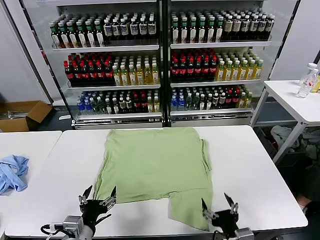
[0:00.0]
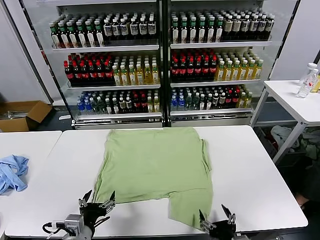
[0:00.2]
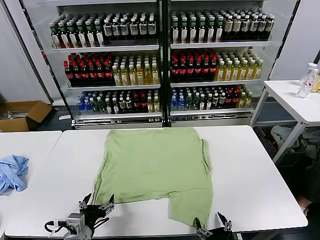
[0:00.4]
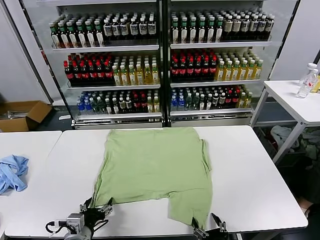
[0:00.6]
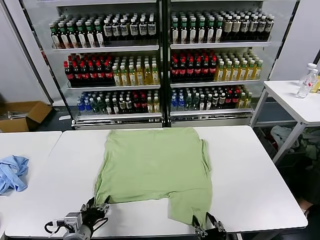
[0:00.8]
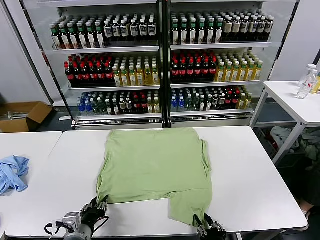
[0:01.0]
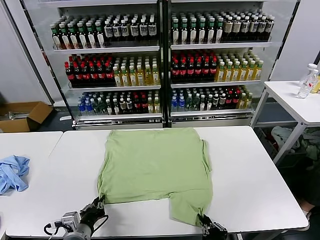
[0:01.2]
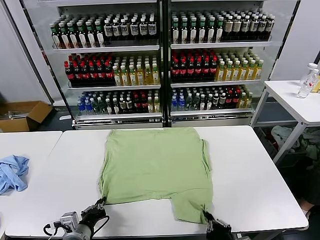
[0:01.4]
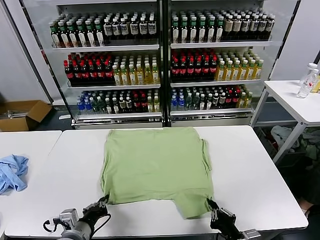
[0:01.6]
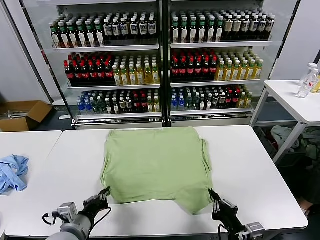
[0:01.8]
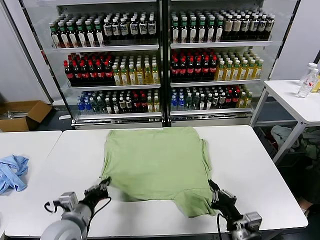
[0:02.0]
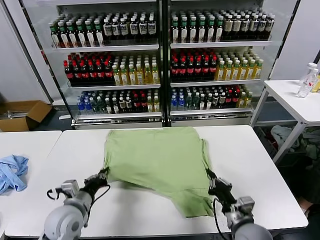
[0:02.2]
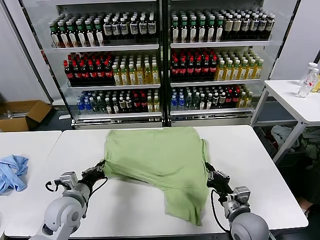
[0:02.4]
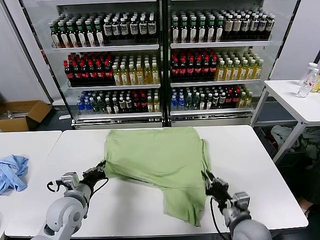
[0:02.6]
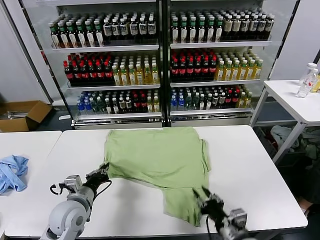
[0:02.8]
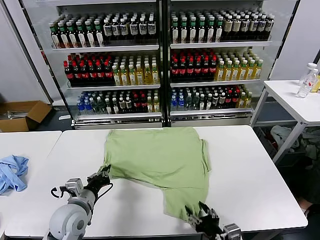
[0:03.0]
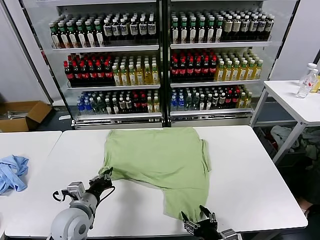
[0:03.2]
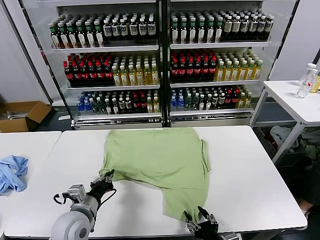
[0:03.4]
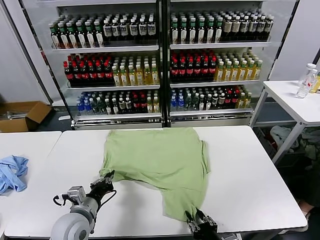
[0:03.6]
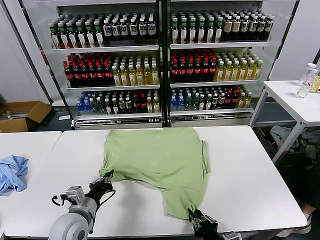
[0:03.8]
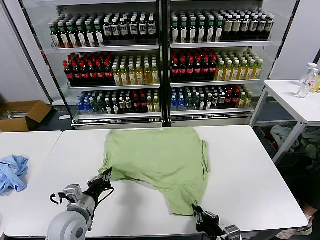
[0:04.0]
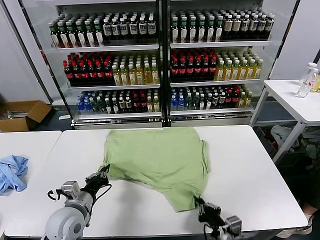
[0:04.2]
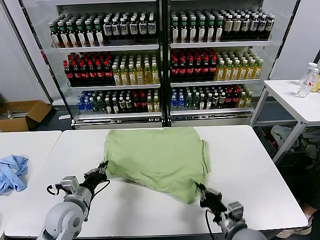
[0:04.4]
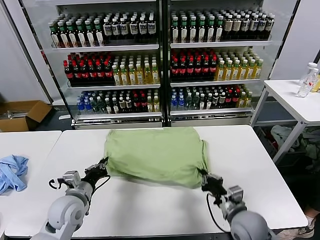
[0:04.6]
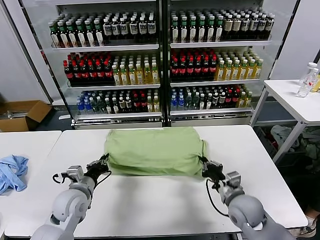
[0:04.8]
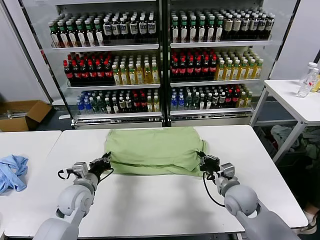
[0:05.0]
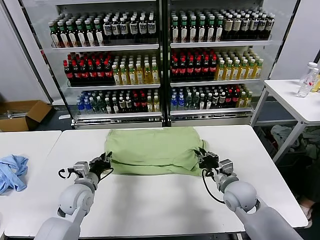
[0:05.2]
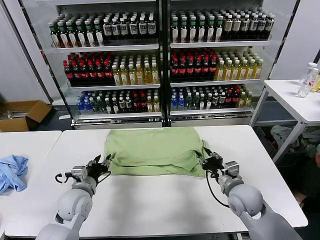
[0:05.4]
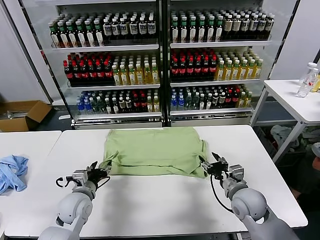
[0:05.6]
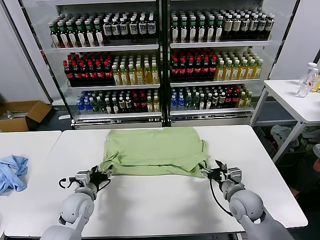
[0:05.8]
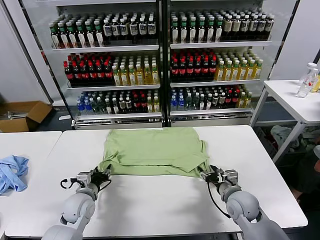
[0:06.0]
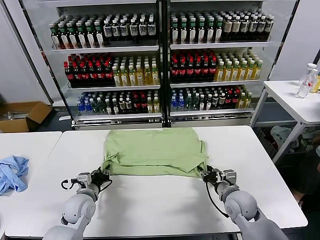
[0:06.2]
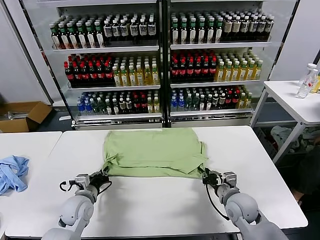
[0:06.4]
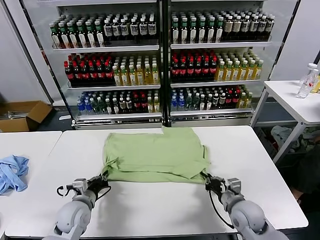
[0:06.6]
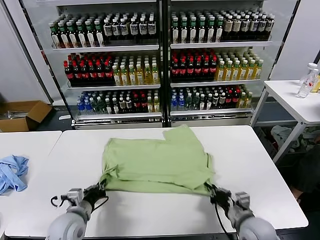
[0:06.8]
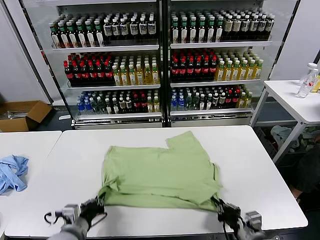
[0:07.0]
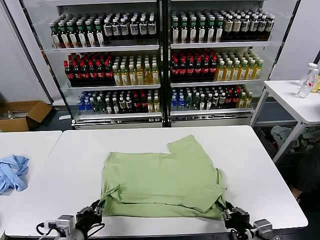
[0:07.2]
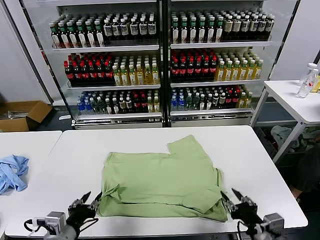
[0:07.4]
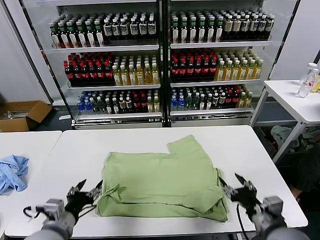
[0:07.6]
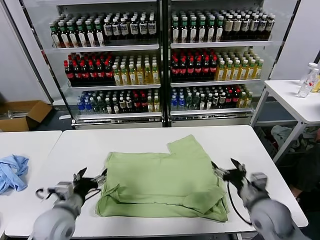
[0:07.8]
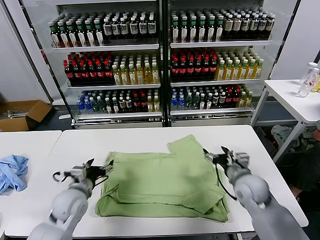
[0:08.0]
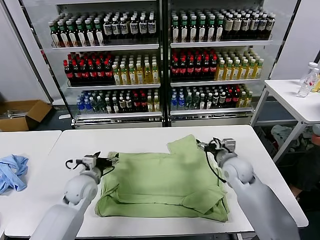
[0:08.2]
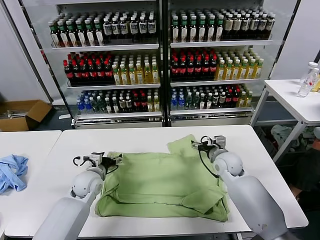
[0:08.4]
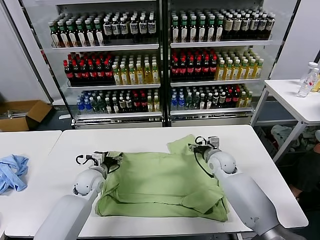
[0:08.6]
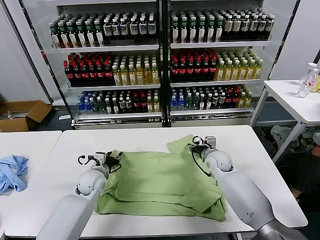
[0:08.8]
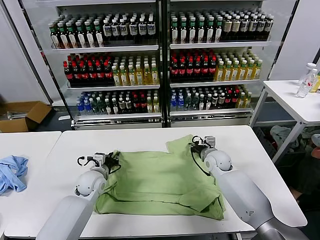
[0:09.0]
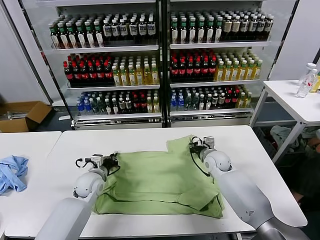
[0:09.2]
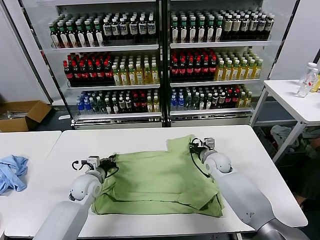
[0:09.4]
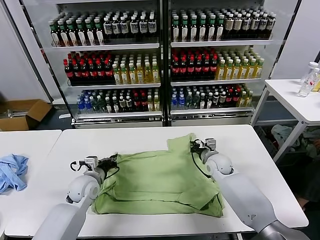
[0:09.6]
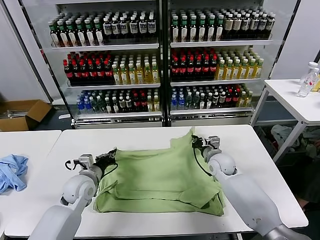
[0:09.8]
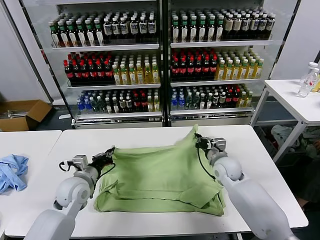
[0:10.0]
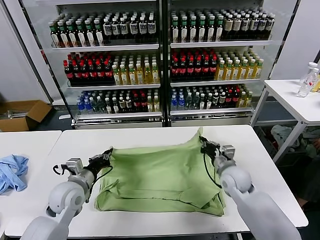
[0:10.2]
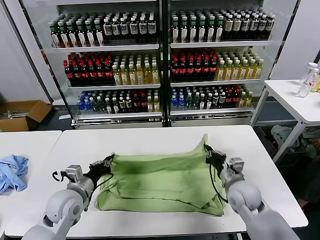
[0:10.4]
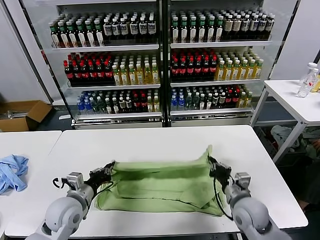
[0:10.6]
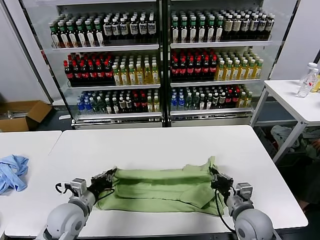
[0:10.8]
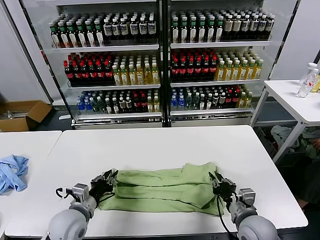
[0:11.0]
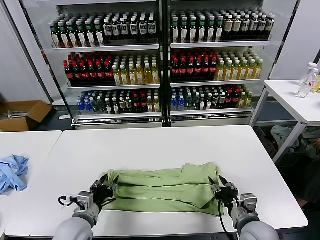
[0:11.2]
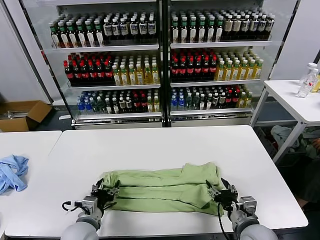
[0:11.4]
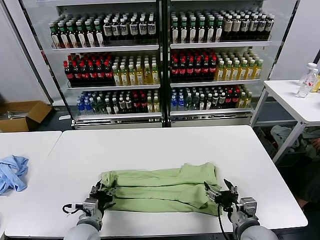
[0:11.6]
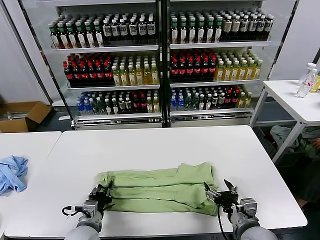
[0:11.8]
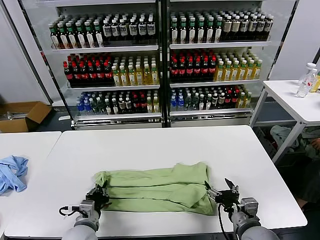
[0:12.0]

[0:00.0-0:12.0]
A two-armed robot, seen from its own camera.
Task of the whole recording: fold and organize the clothes.
Step, 0:00.0 to 0:01.2: use both grippers simultaneously to clamp the lower edge of the clothing fabric.
Step, 0:01.4 to 0:05.4: use both grippers to drag the lower edge of the fabric forward and fold it over the upper edge.
Step, 0:05.8 to 0:07.2: Drag the clothes downward with both gripper.
Step, 0:07.4 to 0:09.2: use both grippers simultaneously to clamp the upper edge of the clothing fabric.
Step, 0:09.4 to 0:11.0: use both grippers to drag the upper edge of the fabric backward and fold it over the lower edge.
0:01.6 to 0:03.0: The left gripper travels forward by some 10 cm. The right gripper reaches some 10 cm forward, then returns, and opens its fingers.
0:03.0 to 0:04.4: The right gripper shifts approximately 10 cm forward, and closes its fingers.
0:04.4 to 0:06.0: The left gripper shifts approximately 10 cm downward and forward, and opens up. Meanwhile the right gripper goes approximately 10 cm forward, and opens up.
0:06.0 to 0:07.6: The two grippers go about 15 cm backward and upward. The right gripper closes, then opens again. Meanwhile the left gripper closes, then reopens.
0:07.6 to 0:09.0: The right gripper shifts roughly 25 cm forward, and closes its fingers; the left gripper is displaced forward and downward by about 25 cm, and closes its fingers.
0:09.0 to 0:10.4: The left gripper heads backward and upward, covering some 15 cm. The right gripper shifts some 15 cm backward.
0:10.4 to 0:12.0: The left gripper travels downward and backward by roughly 10 cm, and opens, then closes once more. The right gripper travels backward by about 10 cm, and opens up.

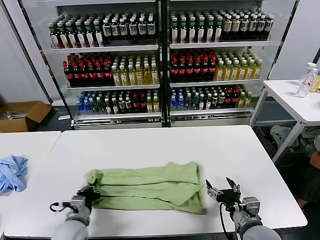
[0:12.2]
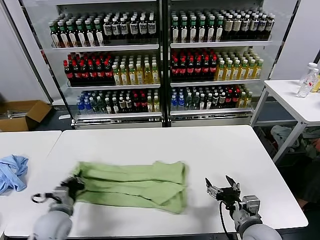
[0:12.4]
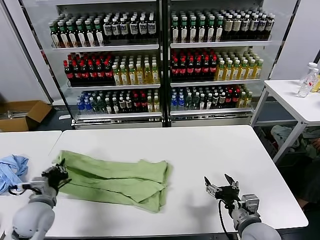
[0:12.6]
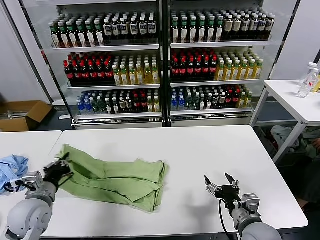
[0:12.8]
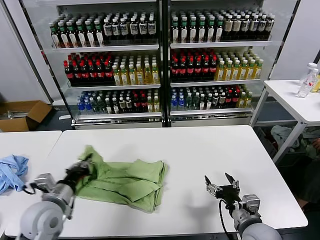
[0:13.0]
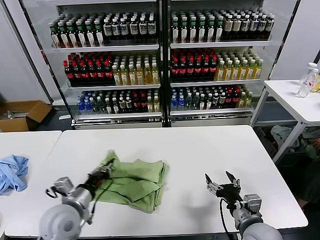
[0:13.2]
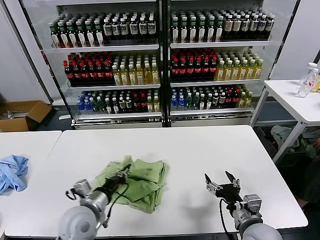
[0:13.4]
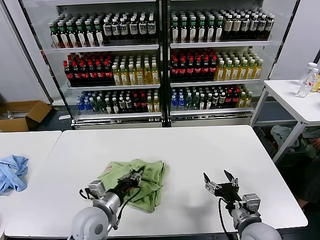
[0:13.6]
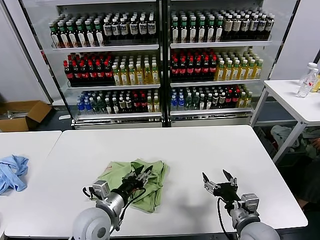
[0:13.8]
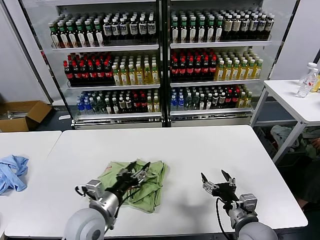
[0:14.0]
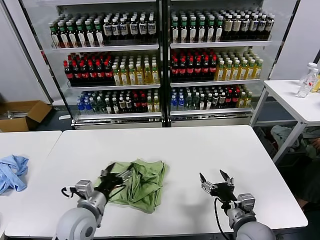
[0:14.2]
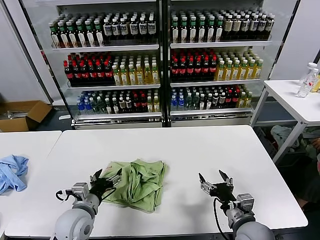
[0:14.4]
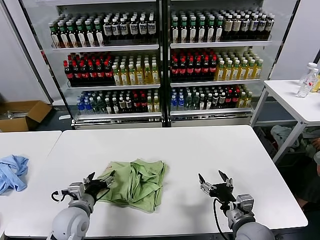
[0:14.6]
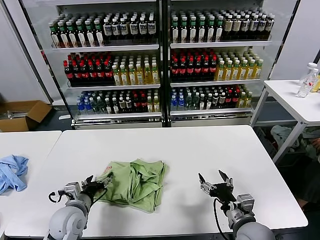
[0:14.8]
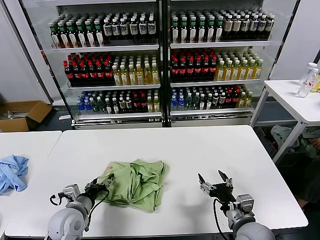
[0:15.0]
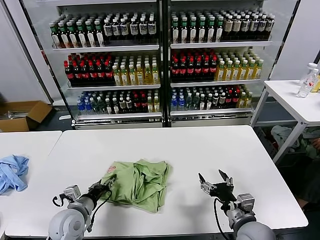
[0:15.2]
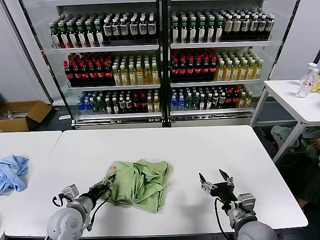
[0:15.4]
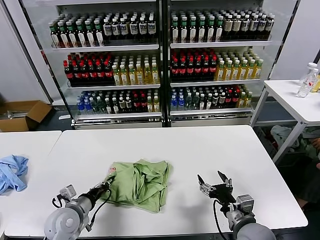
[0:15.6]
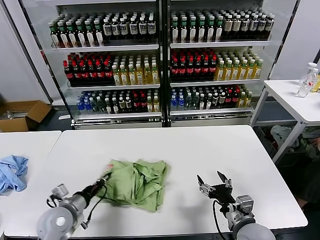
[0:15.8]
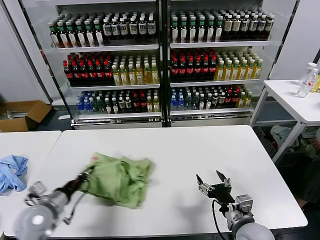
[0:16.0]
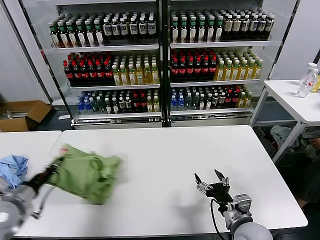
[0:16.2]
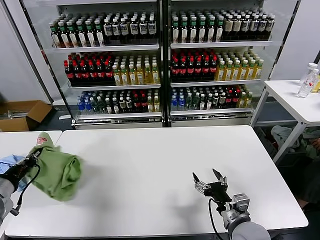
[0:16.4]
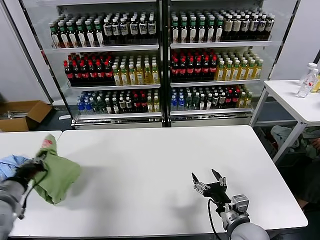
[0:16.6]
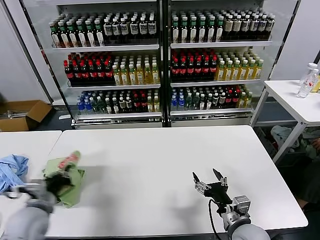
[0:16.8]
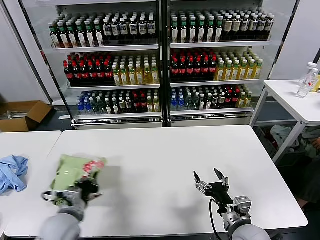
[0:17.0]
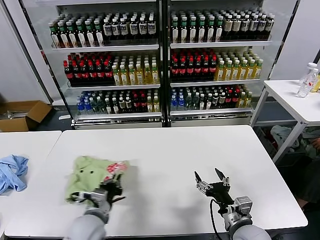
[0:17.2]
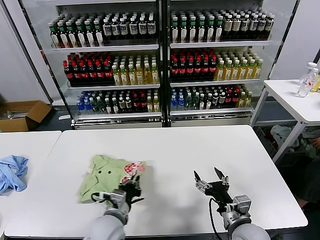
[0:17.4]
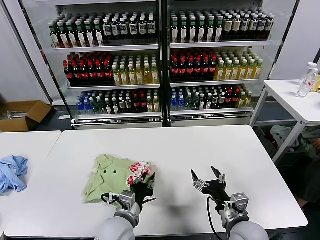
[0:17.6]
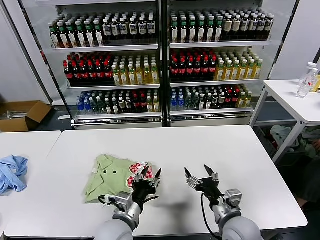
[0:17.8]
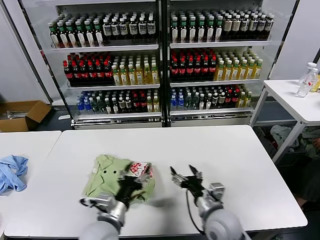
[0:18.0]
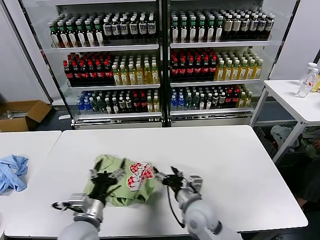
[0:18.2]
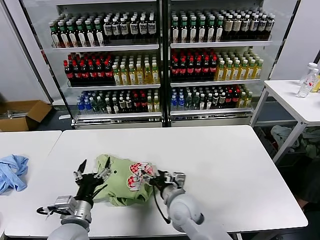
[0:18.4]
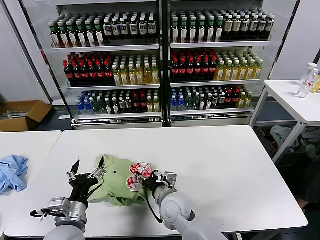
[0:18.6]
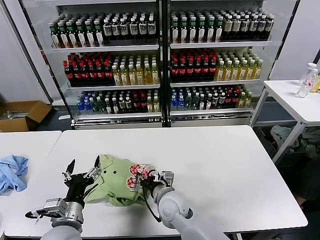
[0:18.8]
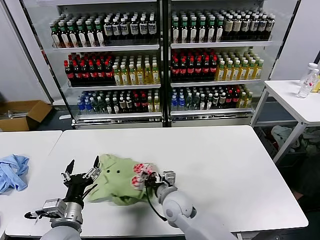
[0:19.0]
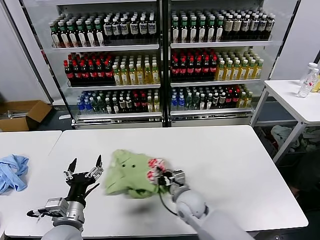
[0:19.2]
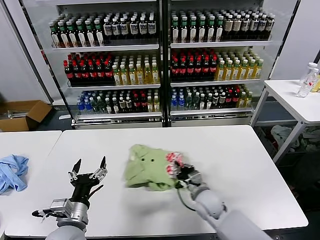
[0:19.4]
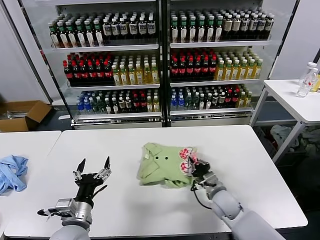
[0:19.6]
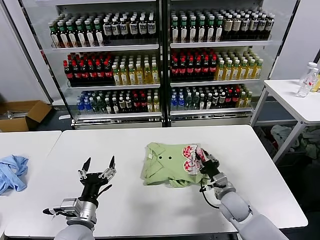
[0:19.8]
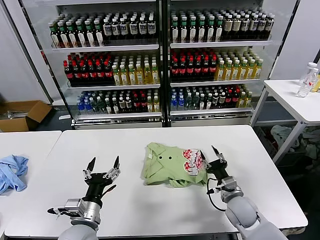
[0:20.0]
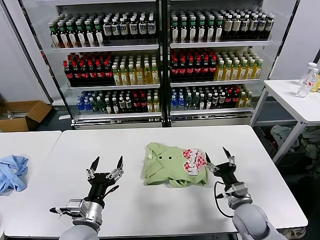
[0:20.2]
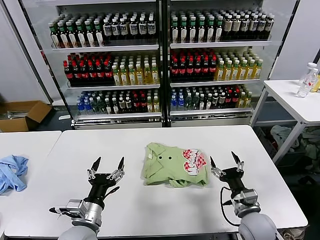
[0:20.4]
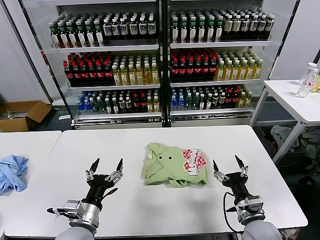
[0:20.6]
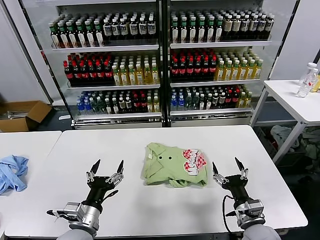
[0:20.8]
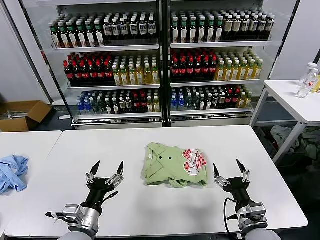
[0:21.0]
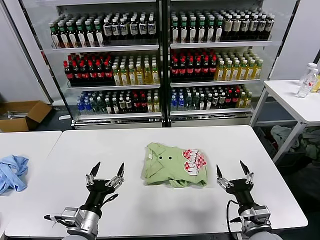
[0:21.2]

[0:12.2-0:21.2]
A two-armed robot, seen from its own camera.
Task of the whole recording: fold and organize the clothes.
Step, 0:12.4 to 0:13.8: use the left gripper to drag the left edge of the fabric to the left and folds it over the right edge.
Step, 0:14.0 to 0:17.6: Flip the folded clothes over with left gripper.
Step, 0:17.8 to 0:19.8: Drag the clothes to the center of the table.
0:12.2 to 0:13.8: The left gripper travels to the right and upward by some 15 cm, and opens its fingers.
0:13.8 to 0:15.2: The left gripper travels to the left and downward by some 10 cm, and opens, then closes again.
0:15.2 to 0:16.6: The left gripper shifts some 20 cm upward and to the left, and closes its fingers.
0:16.6 to 0:18.2: The left gripper goes about 25 cm to the right, and opens its fingers. Meanwhile the right gripper heads to the left and forward, covering some 15 cm.
0:18.2 to 0:19.8: The right gripper travels to the right, forward and downward by approximately 15 cm, and closes up.
0:19.8 to 0:21.2: The right gripper heads backward and upward, covering roughly 15 cm, and opens up.
